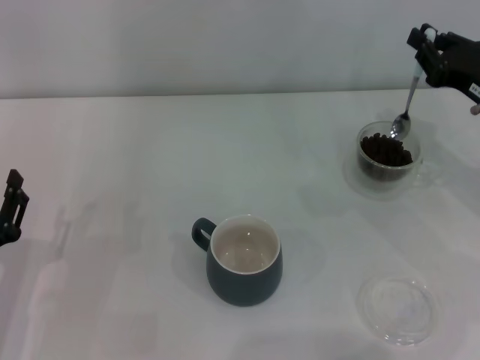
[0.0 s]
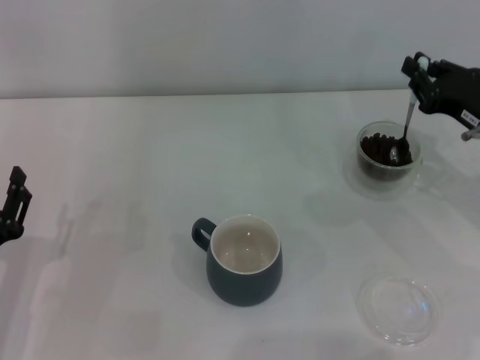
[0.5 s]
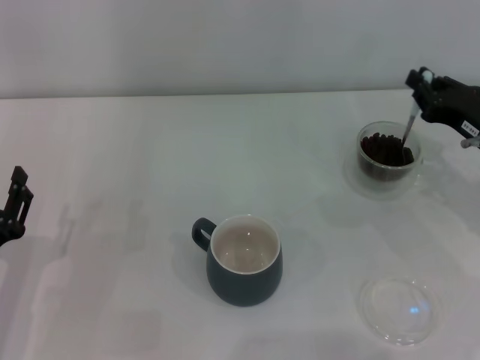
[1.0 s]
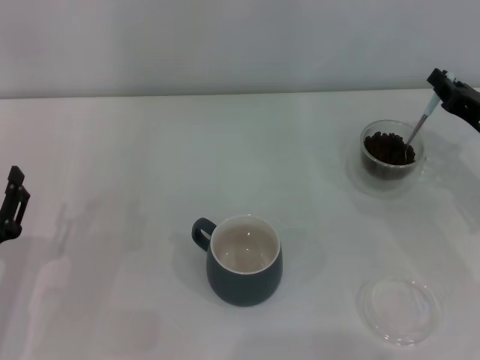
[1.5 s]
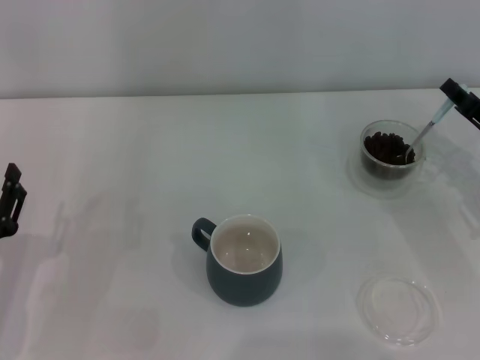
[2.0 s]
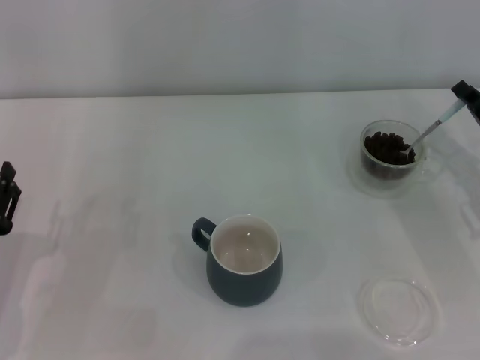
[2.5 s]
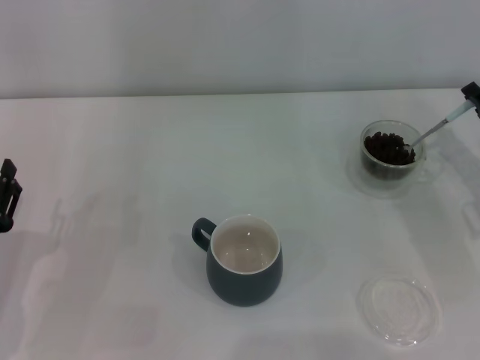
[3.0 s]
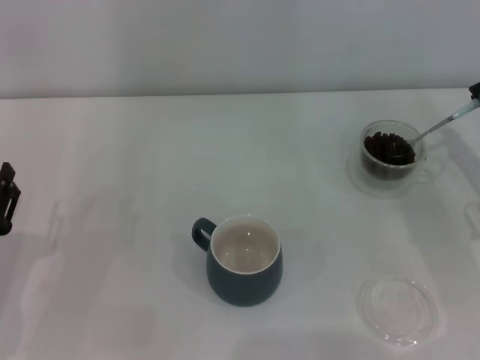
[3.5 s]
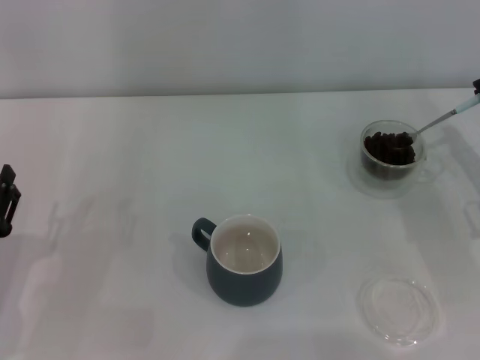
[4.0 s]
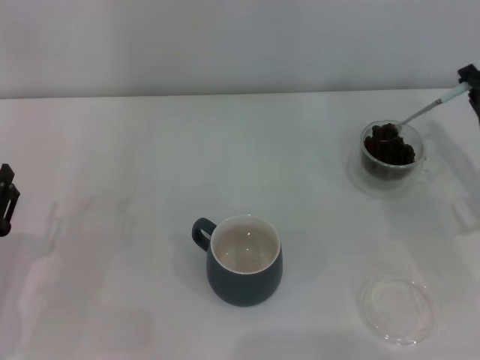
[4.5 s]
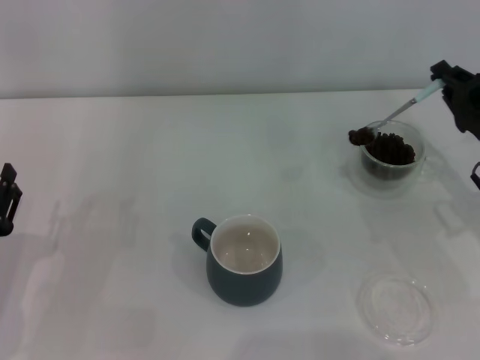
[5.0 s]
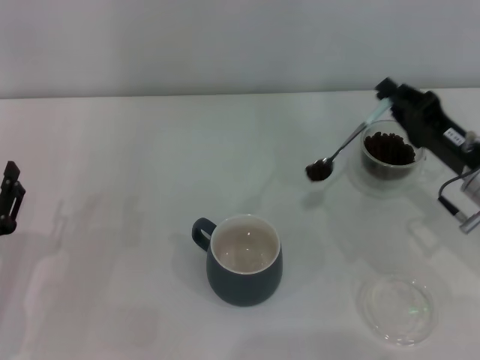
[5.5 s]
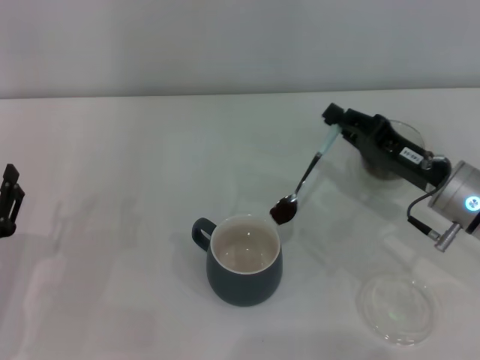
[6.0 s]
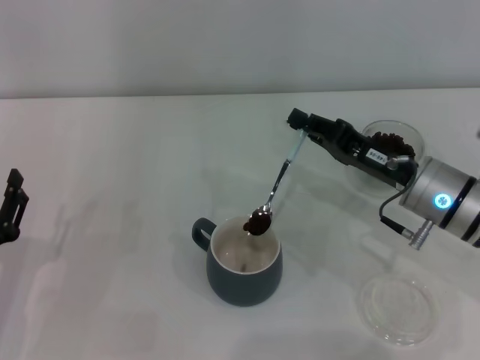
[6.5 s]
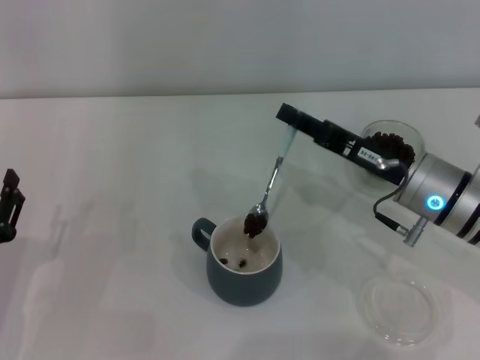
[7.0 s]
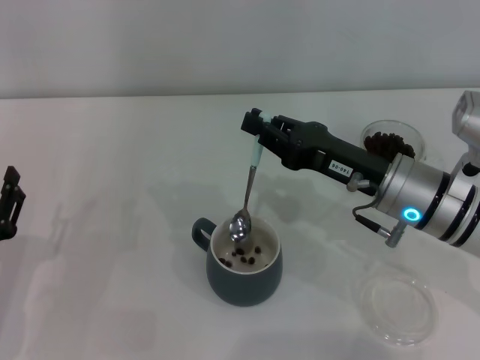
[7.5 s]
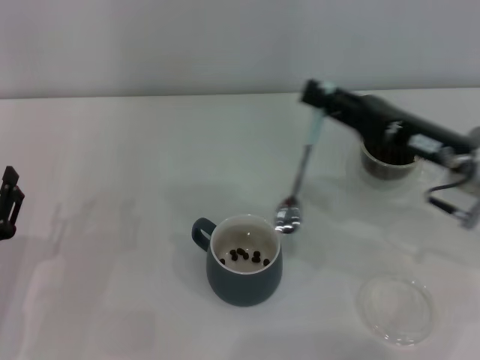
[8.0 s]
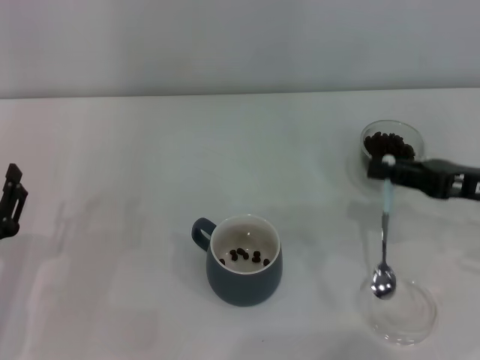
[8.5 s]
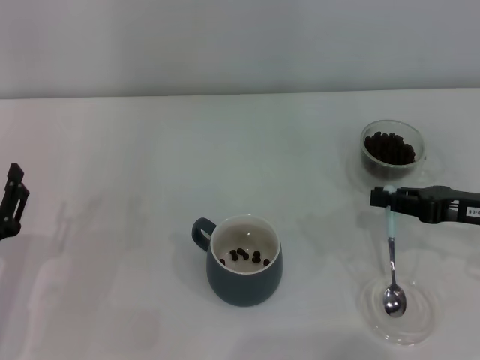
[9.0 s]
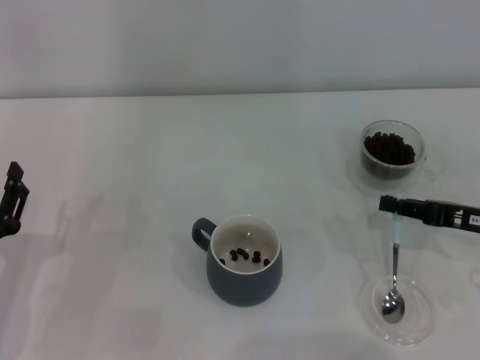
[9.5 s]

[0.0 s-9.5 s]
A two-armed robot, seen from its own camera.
Task of the whole recording: Use a blue spoon to take out the coffee beans from the glass and pour them into the gray cup.
Step, 0.0 to 7.0 s: Scoop a spoonful of beans into the cup with the right gripper.
0.0 to 2.0 s: The right gripper is displaced downward by approximately 5 cm.
4.0 to 5.5 s: The right gripper heads to the left, covering some 5 cm.
5.5 to 7.5 s: The right gripper is displaced to the left by roughly 10 cm.
7.5 to 9.5 s: The right gripper moves to the right, approximately 15 cm.

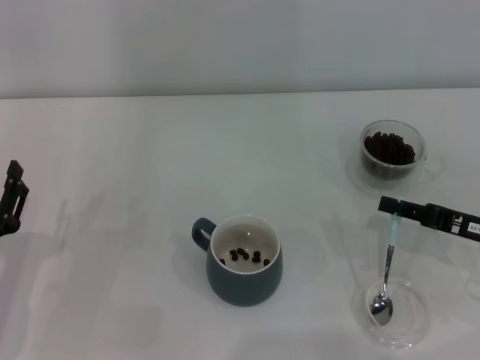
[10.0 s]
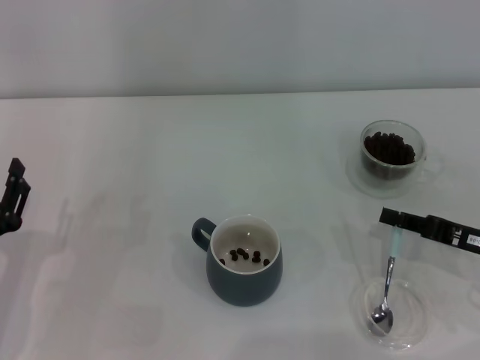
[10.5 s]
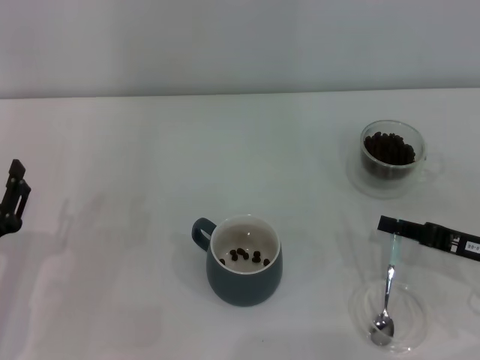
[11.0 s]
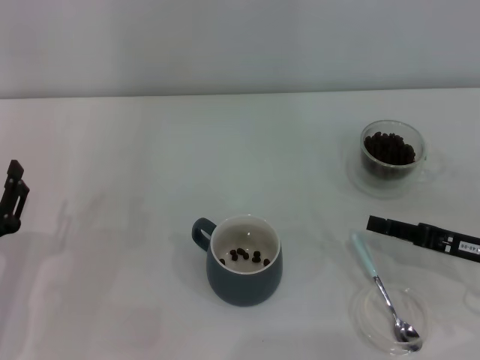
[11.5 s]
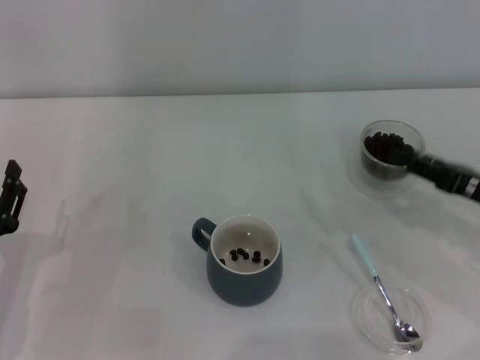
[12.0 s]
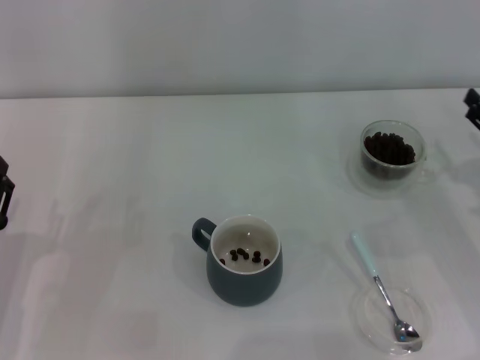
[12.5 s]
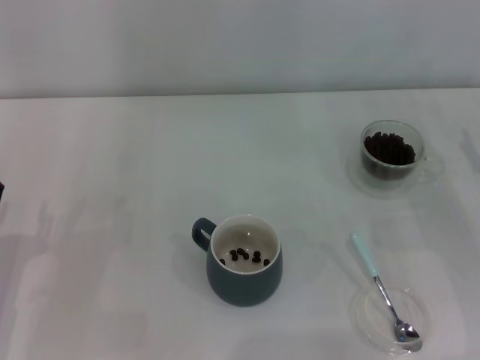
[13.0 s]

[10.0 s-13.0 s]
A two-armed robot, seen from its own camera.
Task of the whole recording: Use a blue spoon to take out the coffee beans from the glass and pour them into the gray cup.
10.0 to 11.5 s: The right gripper opens its fingers.
11.5 to 13.0 s: The right gripper changes place by some 5 cm, and opens its fingers.

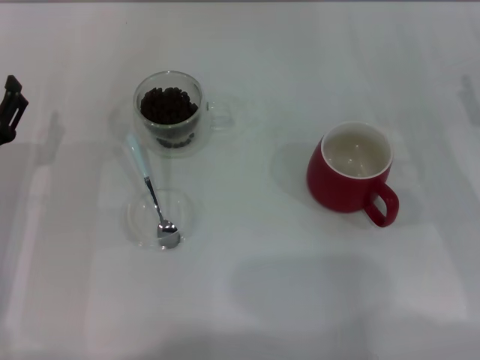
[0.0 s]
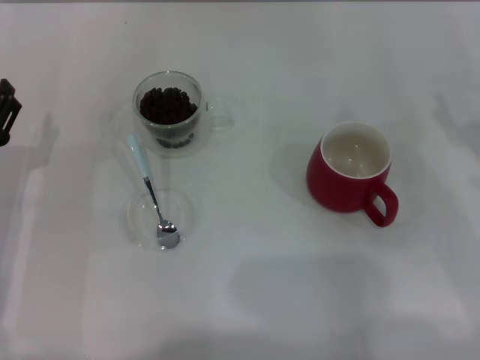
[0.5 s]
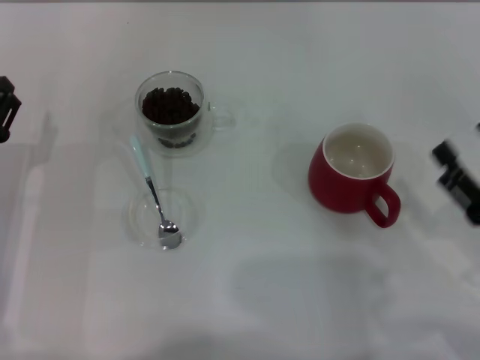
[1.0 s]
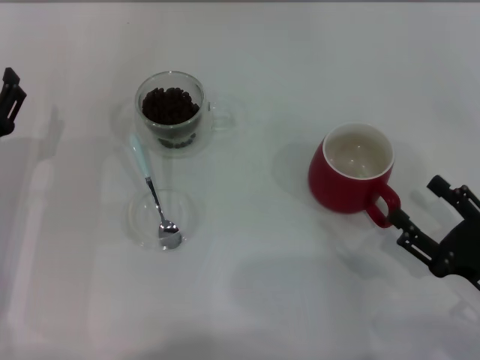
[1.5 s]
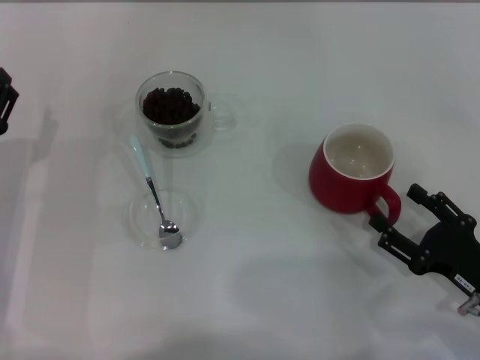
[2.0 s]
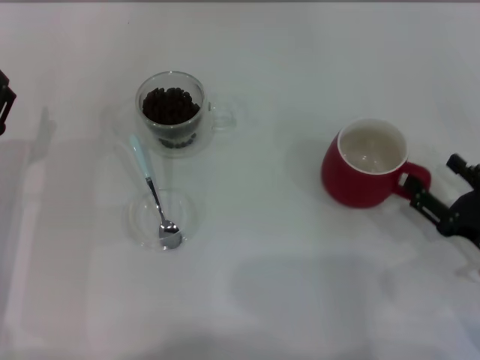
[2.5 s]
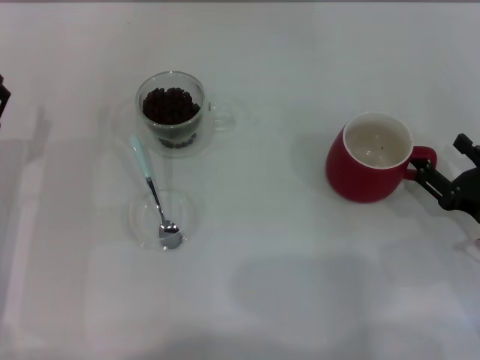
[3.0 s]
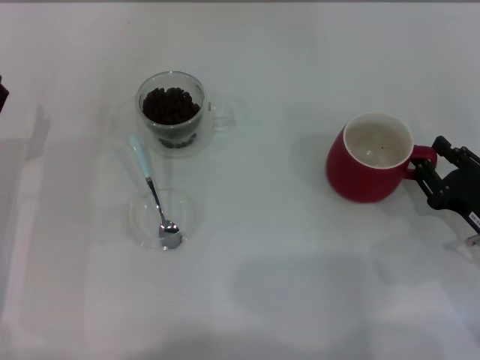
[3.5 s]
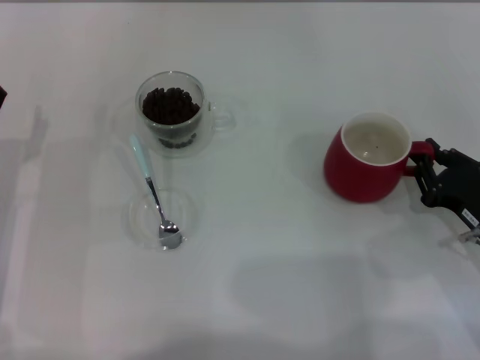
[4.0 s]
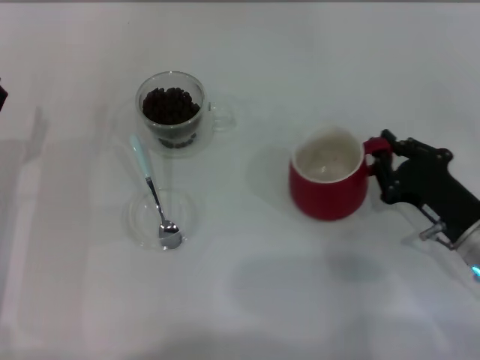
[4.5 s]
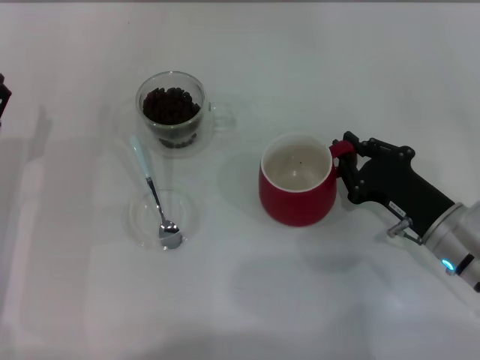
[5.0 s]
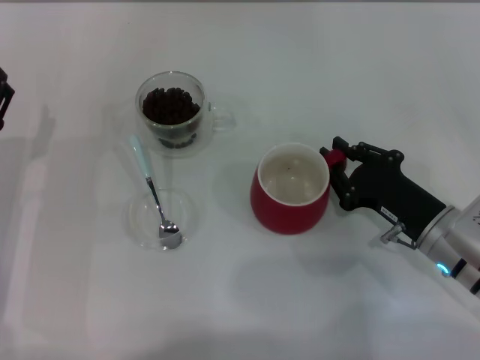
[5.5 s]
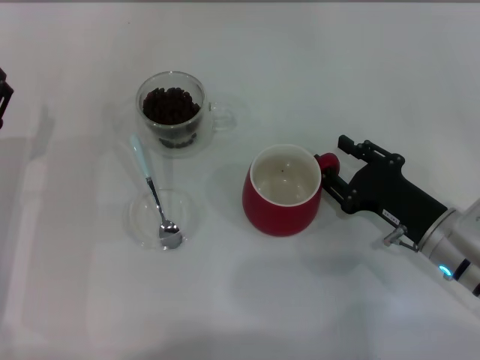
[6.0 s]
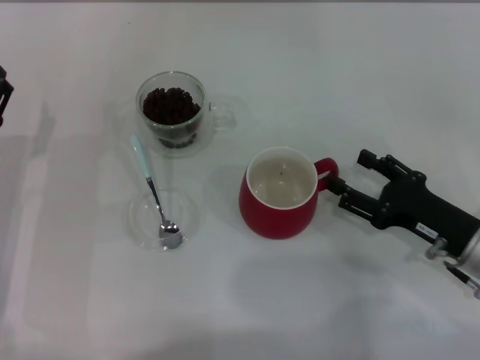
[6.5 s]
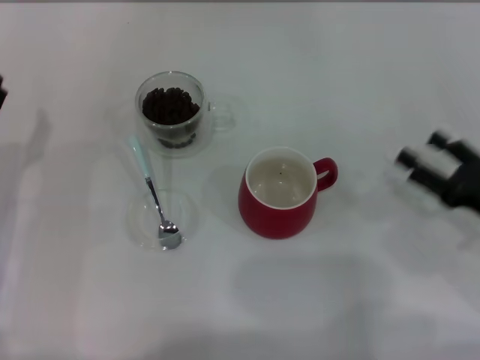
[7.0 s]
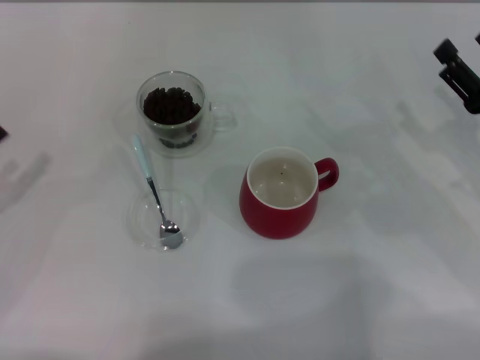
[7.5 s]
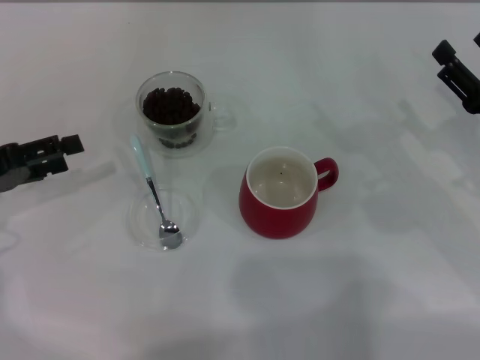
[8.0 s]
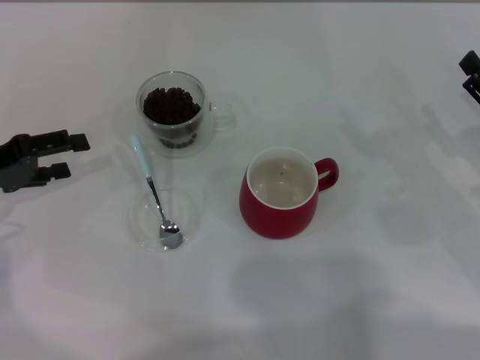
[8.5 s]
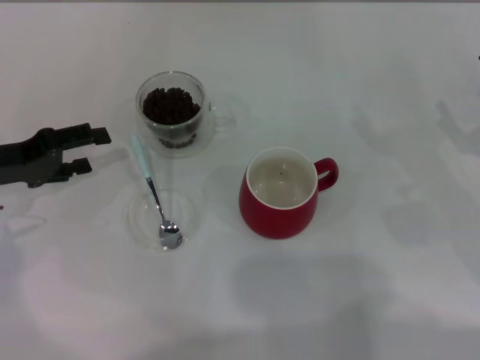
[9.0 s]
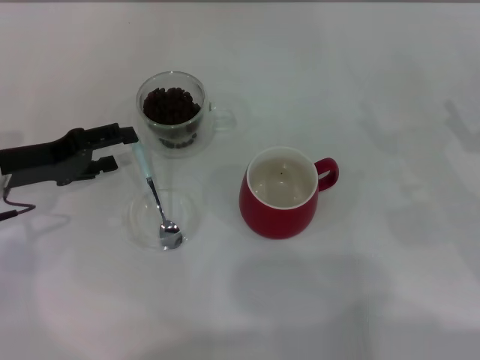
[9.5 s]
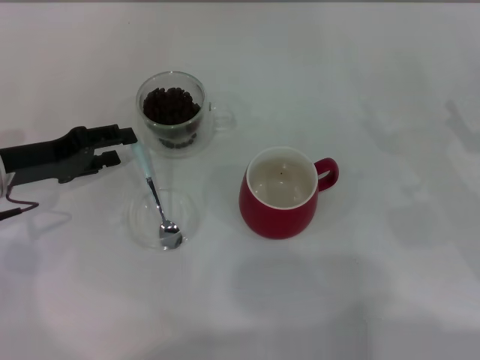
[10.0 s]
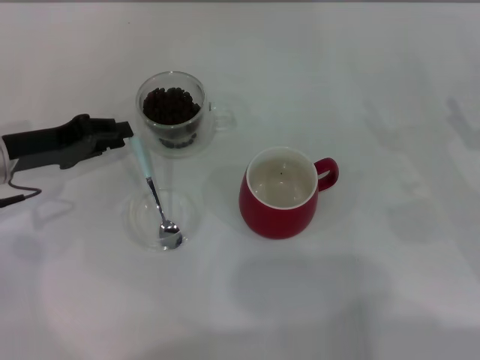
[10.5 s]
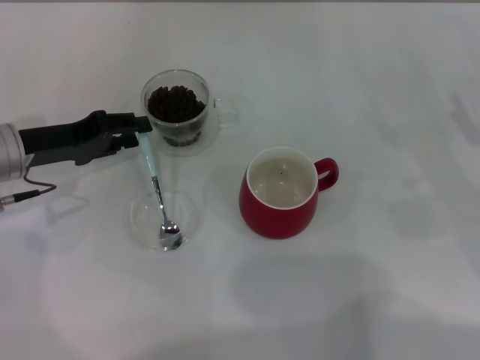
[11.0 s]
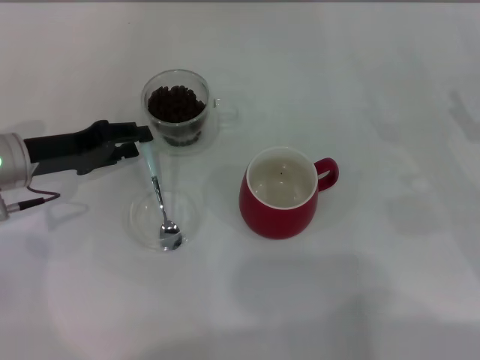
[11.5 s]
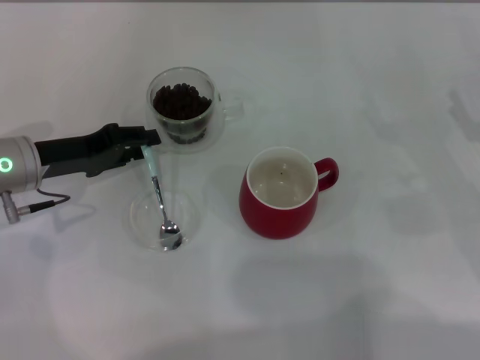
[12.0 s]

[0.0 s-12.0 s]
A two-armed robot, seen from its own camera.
Task of the whole recording: Use a blue spoon to take out the coffee beans from the glass and pour them into the red cup.
0.0 to 2.0 s: The right gripper heads backward, downward and to the left, covering some 15 cm.
2.0 to 4.0 s: The right gripper is displaced forward by roughly 5 cm, and closes its fingers.
4.0 to 6.0 s: The right gripper moves to the left, about 5 cm.
6.0 to 8.0 s: The right gripper goes approximately 10 cm to the right, and opens its fingers, while the left gripper goes some 10 cm to the left and upward.
8.0 to 10.0 s: The left gripper travels to the right by about 5 cm.
10.0 to 12.0 s: The left gripper closes up.

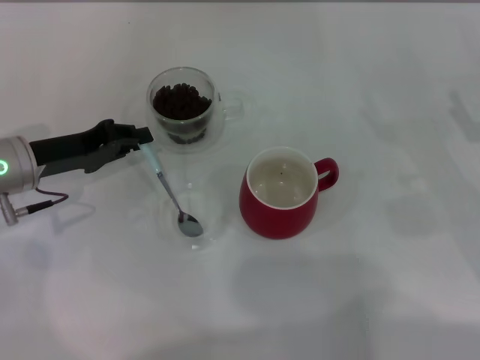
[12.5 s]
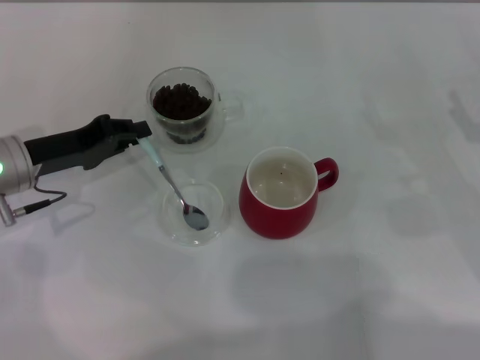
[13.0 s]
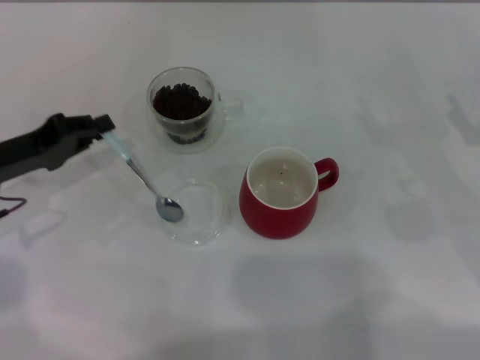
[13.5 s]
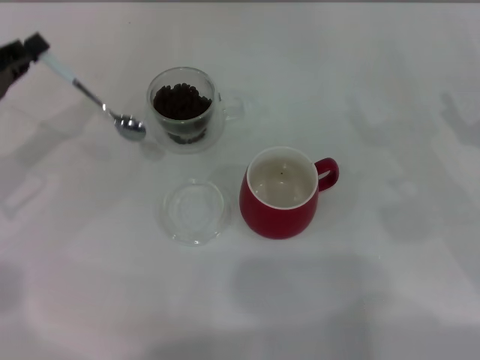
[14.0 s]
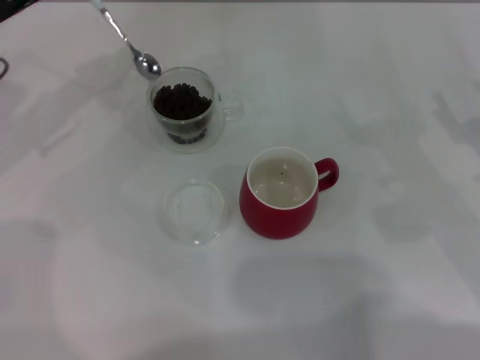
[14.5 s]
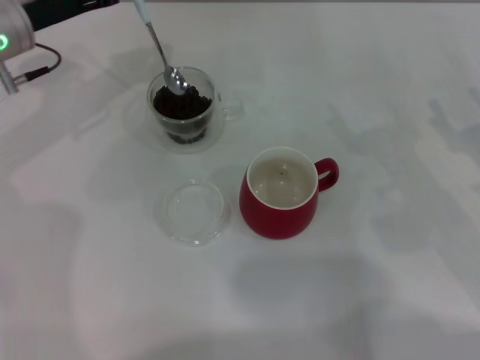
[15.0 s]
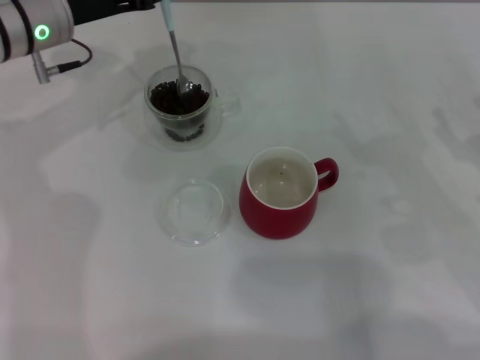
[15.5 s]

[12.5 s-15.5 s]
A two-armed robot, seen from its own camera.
Task of the whole recording: Use a blue spoon to take out the coffee beans from the glass and pour them into the red cup.
12.5 to 14.0 s: The left gripper goes about 5 cm to the left.
14.0 to 15.5 s: The left gripper goes approximately 15 cm to the right and forward.
